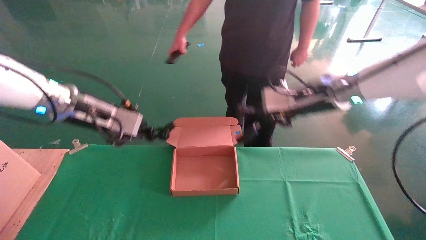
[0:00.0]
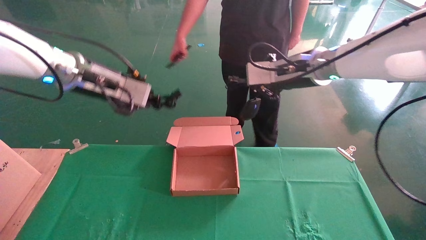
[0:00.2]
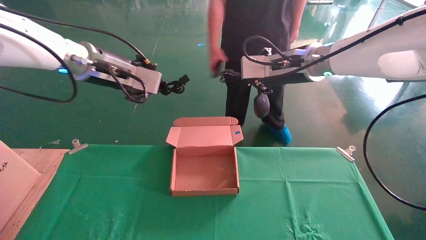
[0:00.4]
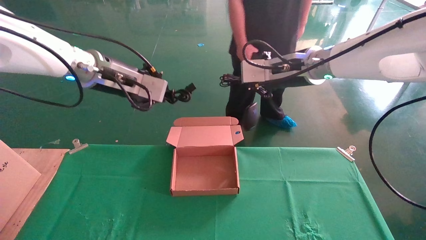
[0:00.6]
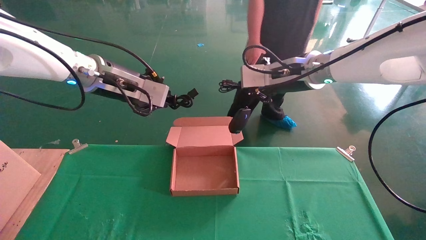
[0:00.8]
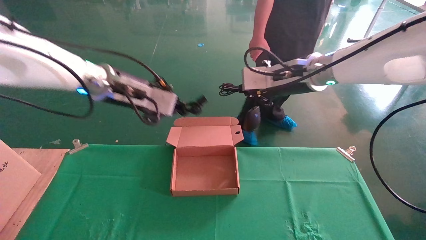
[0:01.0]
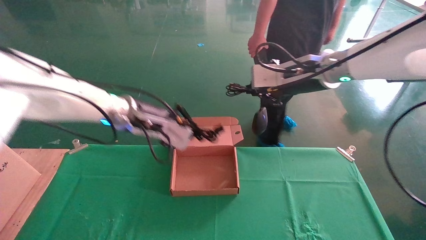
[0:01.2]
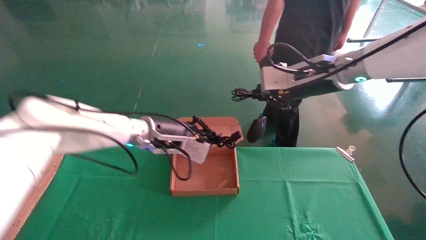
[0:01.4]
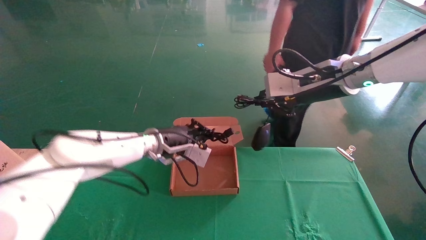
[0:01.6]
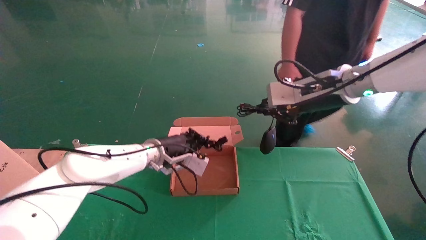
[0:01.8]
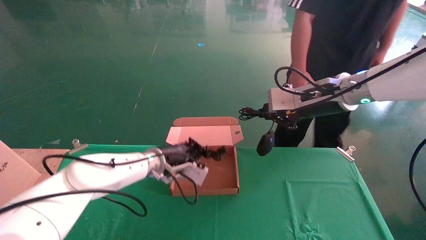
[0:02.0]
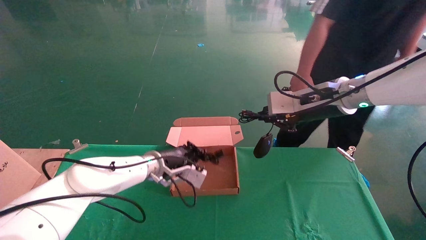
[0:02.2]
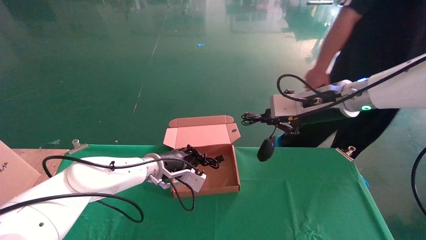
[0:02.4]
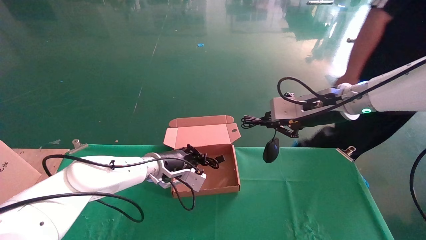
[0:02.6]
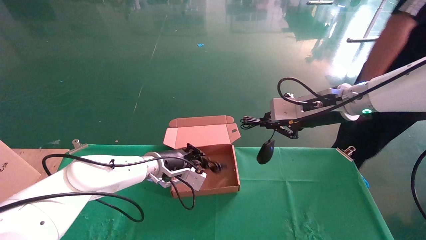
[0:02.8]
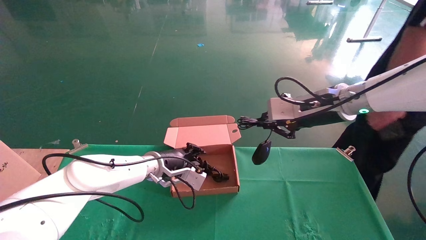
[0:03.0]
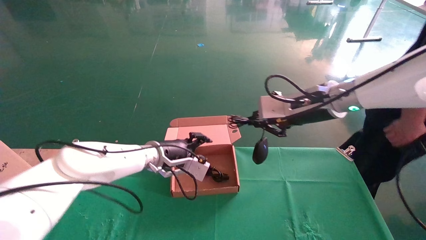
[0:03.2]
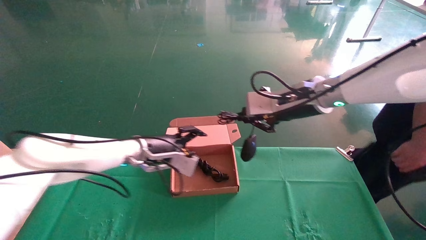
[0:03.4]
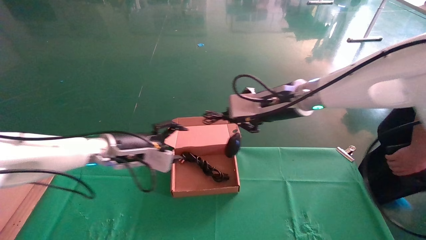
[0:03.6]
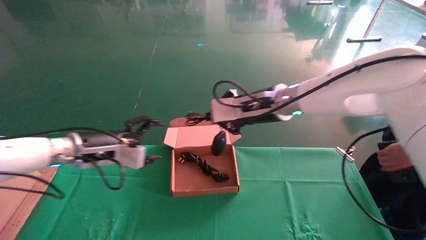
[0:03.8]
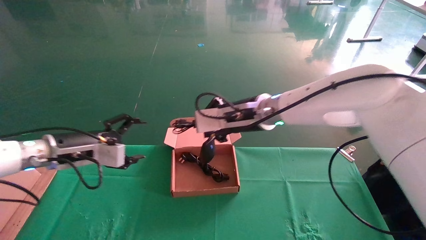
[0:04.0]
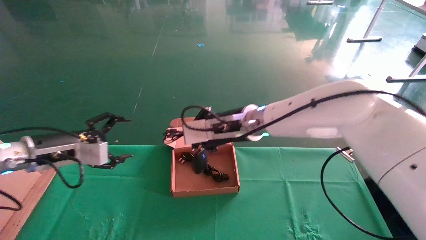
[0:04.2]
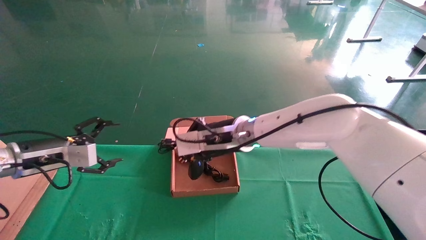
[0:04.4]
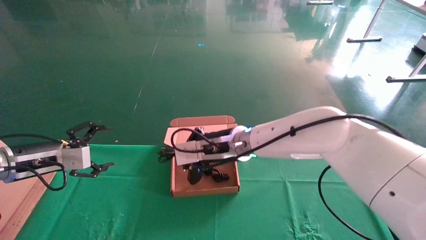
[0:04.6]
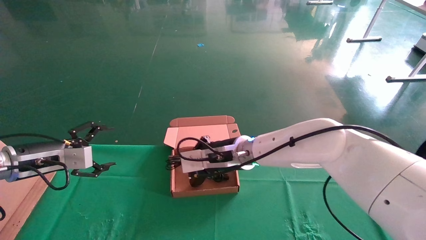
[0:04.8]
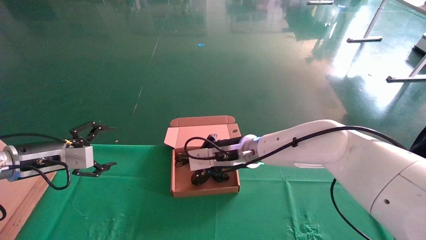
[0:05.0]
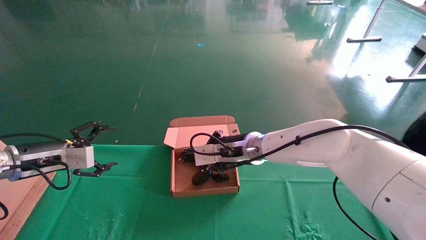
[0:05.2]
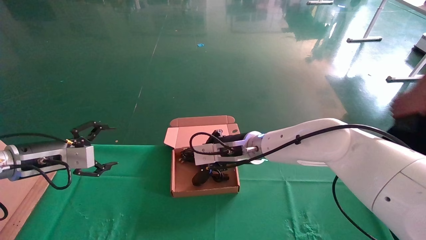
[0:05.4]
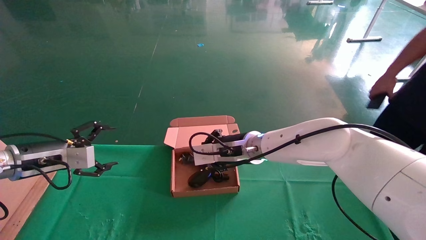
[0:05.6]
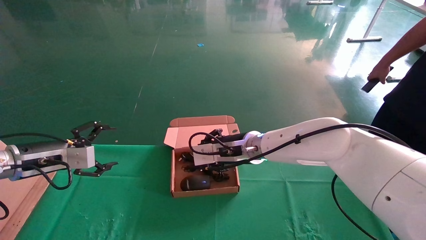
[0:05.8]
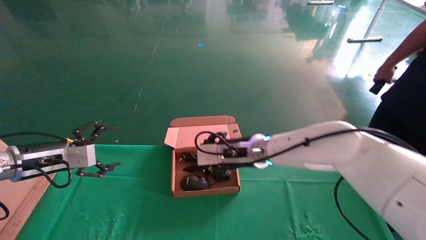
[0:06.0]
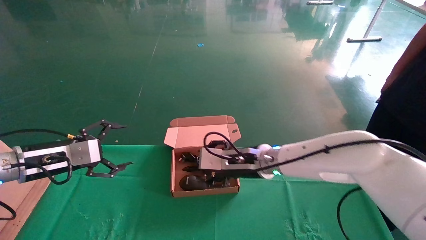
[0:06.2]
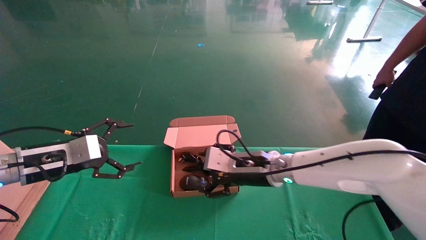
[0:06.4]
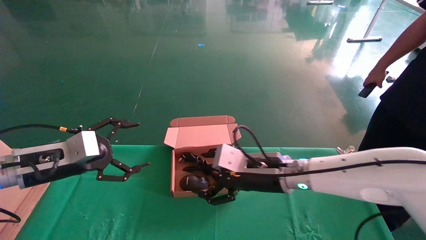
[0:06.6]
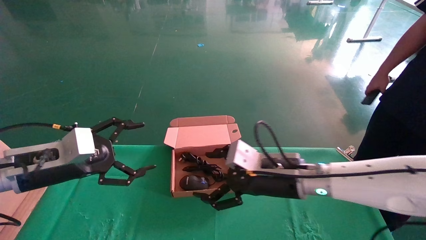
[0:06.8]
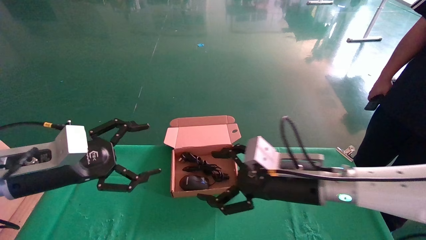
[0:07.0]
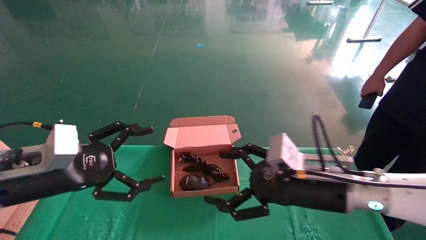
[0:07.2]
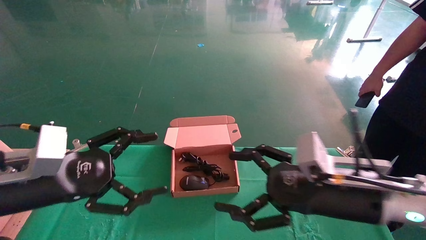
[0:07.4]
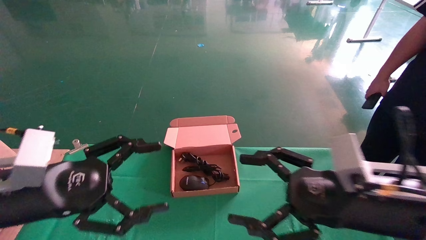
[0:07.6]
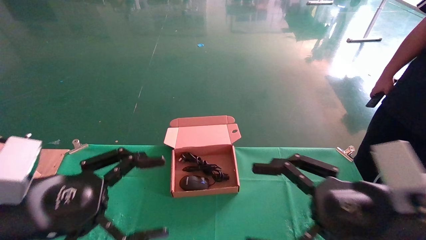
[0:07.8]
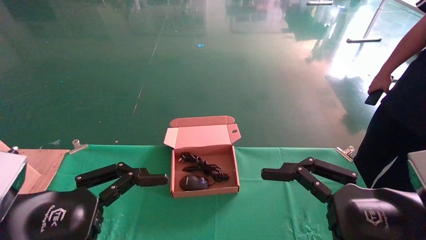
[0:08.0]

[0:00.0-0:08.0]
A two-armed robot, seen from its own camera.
Step, 0:00.4 to 0:06.0: Place the mouse and power cord into the box.
0:00.0 to 0:01.6: The left gripper is displaced to the right, downward and forward by about 20 cm.
0:03.2 to 0:04.8: The right gripper goes some 20 cm to the left and downward. The left gripper goes approximately 25 cm to the left, and opens its fingers.
0:04.8 to 0:06.4: The left gripper shifts by roughly 5 cm; the right gripper is displaced to the right by some 5 cm, and opens its fingers.
0:06.4 to 0:08.0: Both grippers travel together backward and to the right, about 25 cm.
